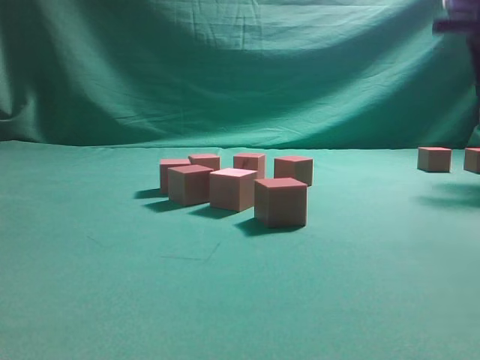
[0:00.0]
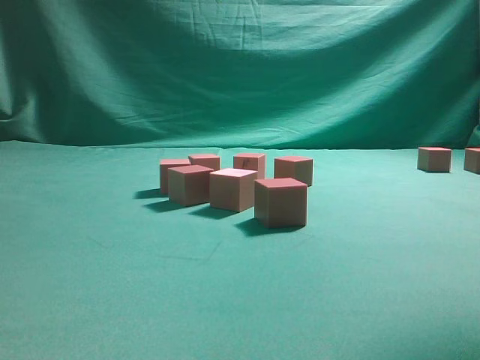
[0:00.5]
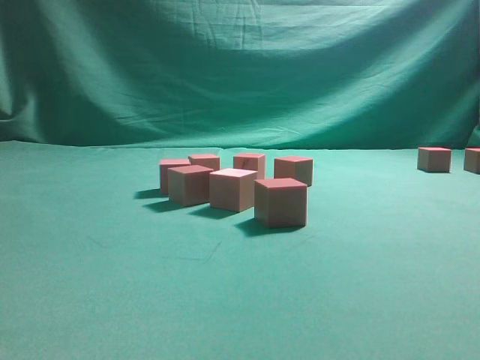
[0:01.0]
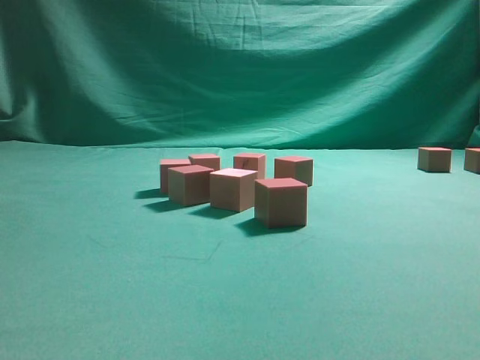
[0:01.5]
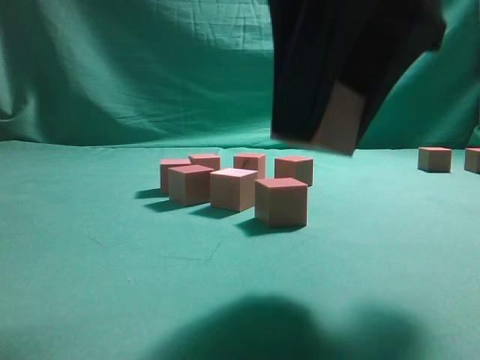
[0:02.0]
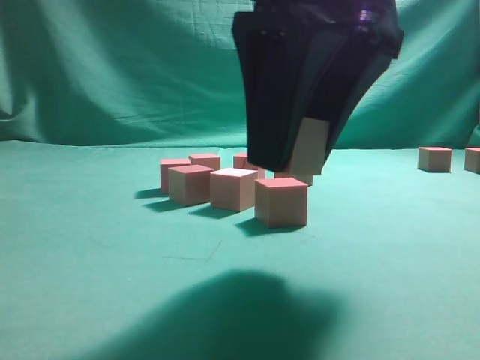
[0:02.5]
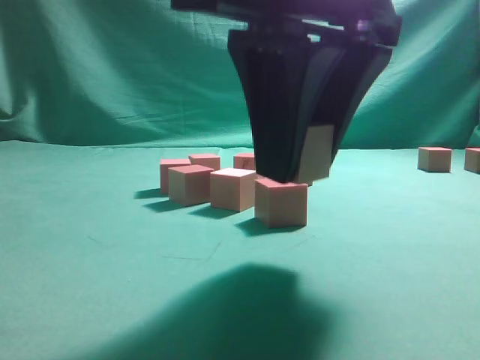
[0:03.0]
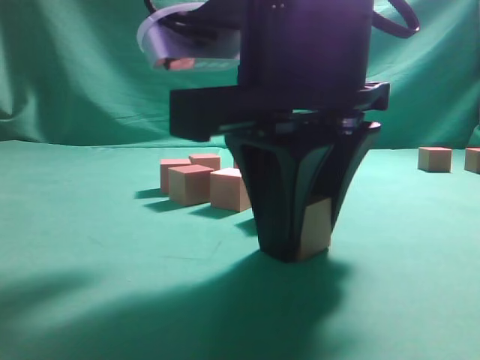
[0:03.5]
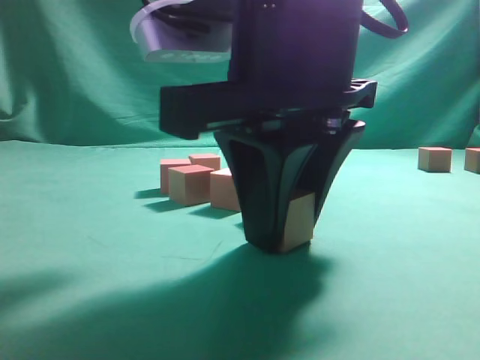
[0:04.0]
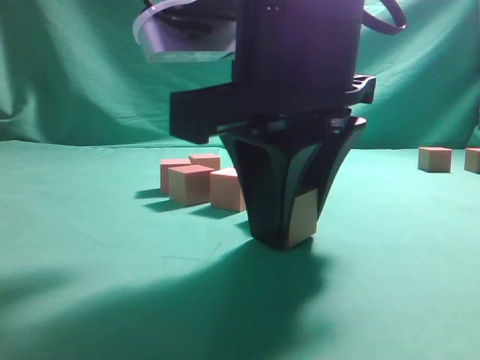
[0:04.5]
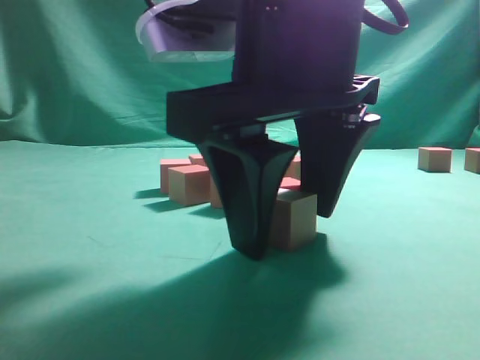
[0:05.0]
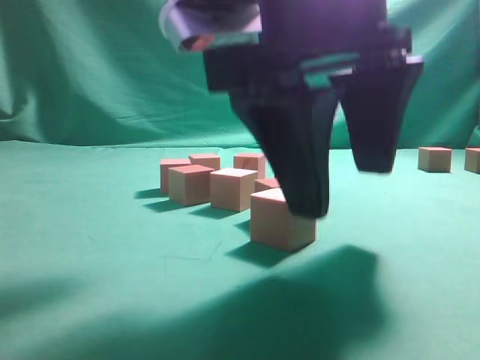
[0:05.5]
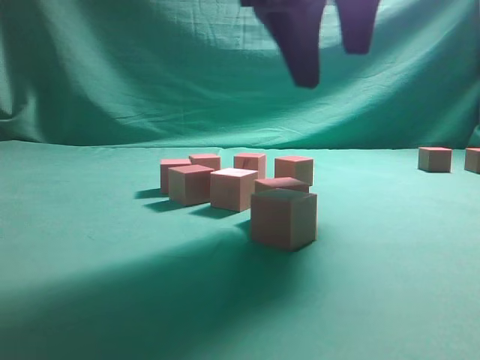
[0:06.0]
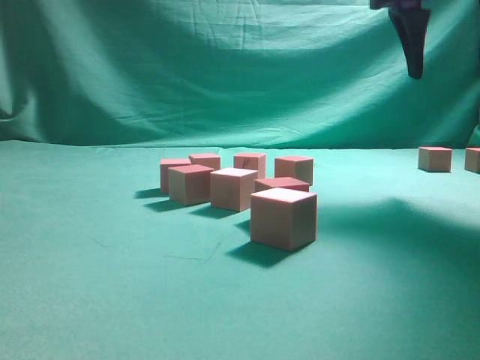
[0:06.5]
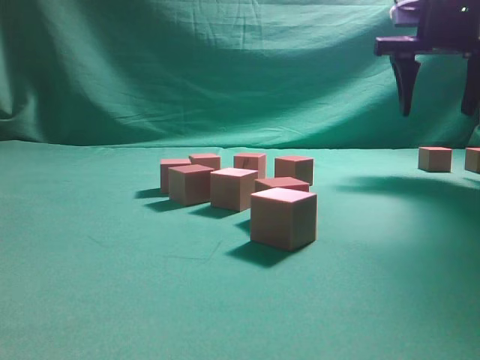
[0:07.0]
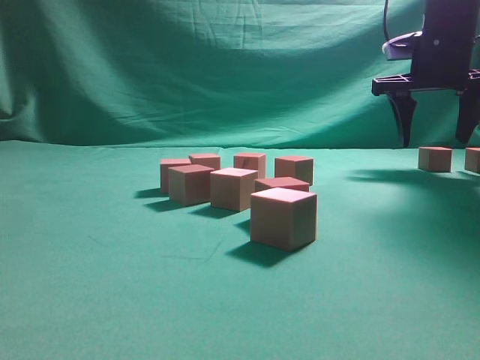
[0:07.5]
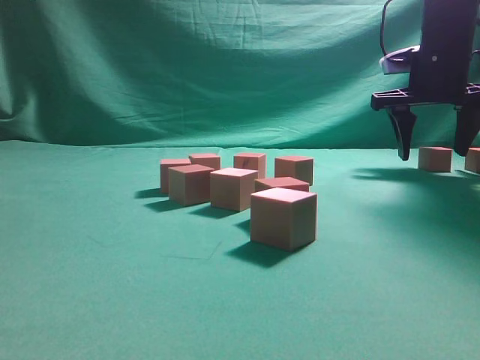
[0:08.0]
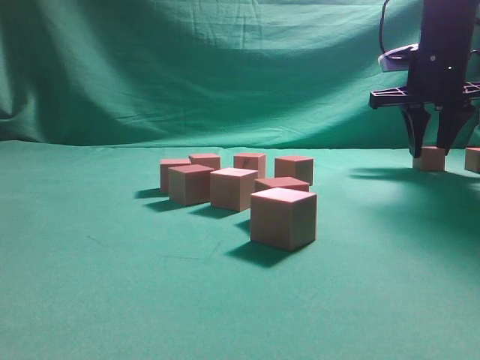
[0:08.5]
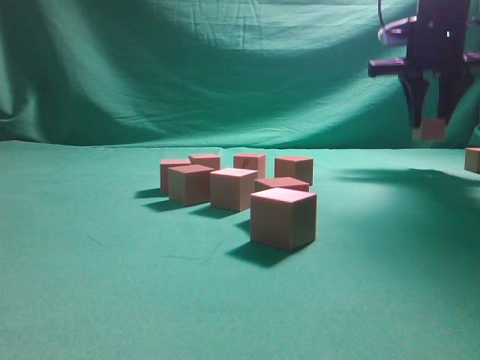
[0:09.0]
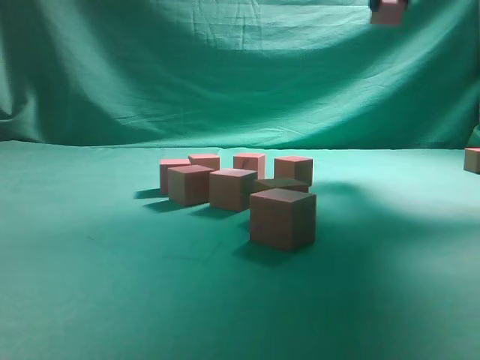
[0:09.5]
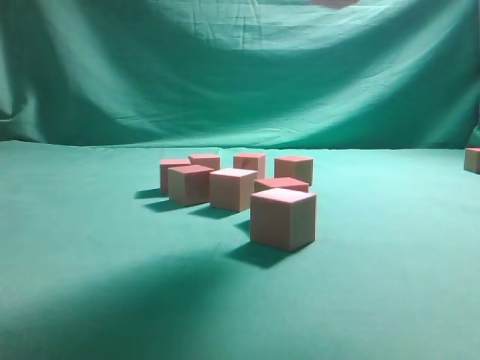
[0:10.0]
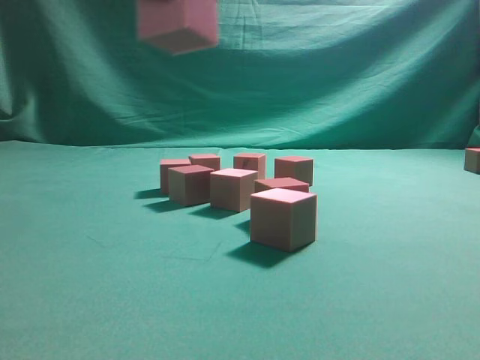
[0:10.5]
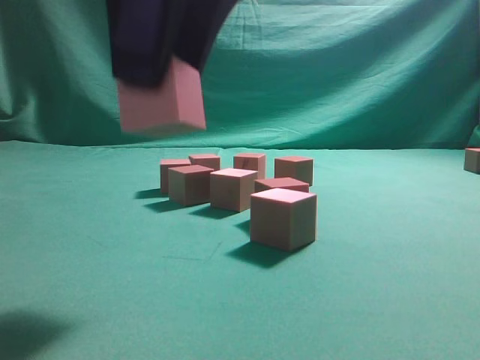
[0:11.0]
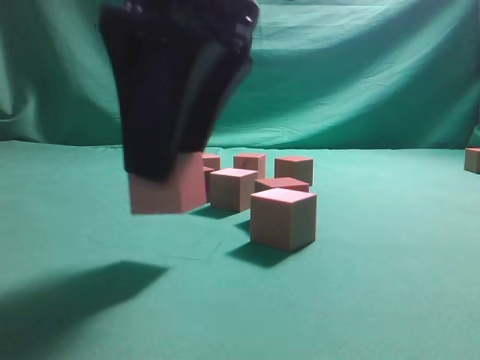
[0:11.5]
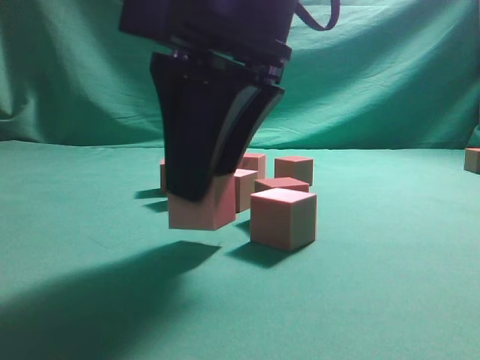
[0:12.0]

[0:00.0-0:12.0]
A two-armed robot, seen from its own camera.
Task of the whole recording: pick up the multiple cubes in two columns one by one and place them in another position on the table.
Step, 0:01.0 to 0:06.0: Place the block at the correct position to assemble the letter S.
Step, 0:06.5 to 0:09.5: Pick up the block on the table.
0:00.0 to 0:02.0: The right gripper heads backward and to the left, covering approximately 30 cm.
0:02.0 to 0:04.0: The right gripper goes about 5 cm downward.
0:04.0 to 0:06.0: The right gripper is displaced upward and forward by some 10 cm, and opens its fingers.
0:06.0 to 0:08.0: The right gripper goes about 30 cm forward, to the right and downward.
0:08.0 to 0:10.0: The right gripper shifts about 30 cm backward, upward and to the left, and closes up.
0:10.0 to 0:12.0: The right gripper travels downward, to the left and backward by some 20 cm.

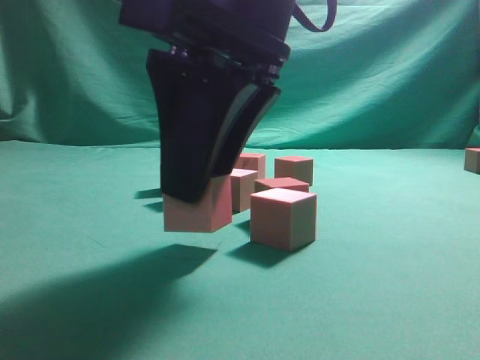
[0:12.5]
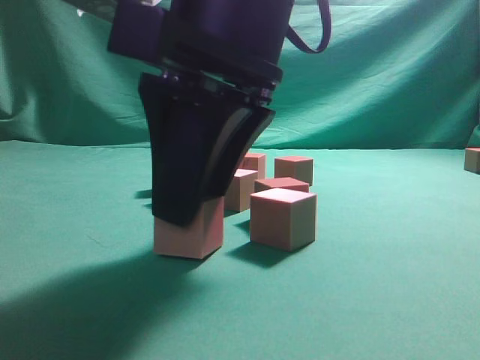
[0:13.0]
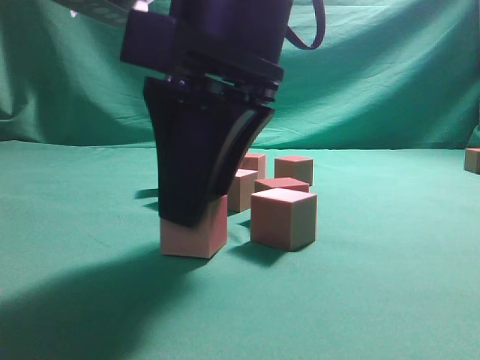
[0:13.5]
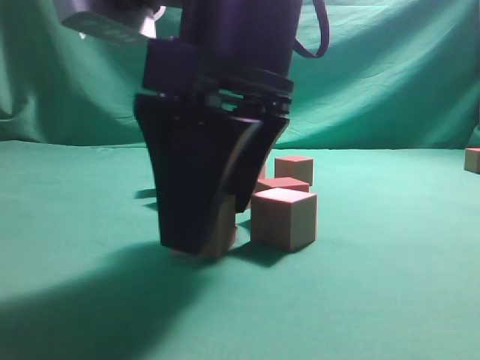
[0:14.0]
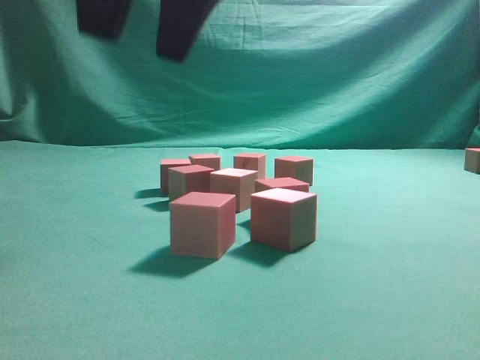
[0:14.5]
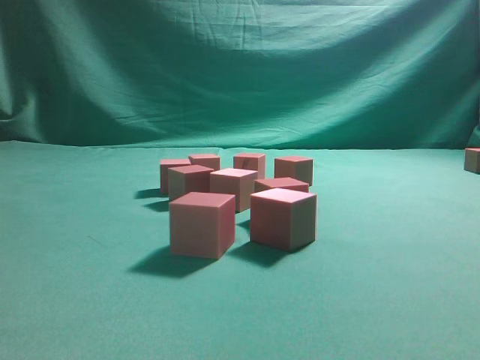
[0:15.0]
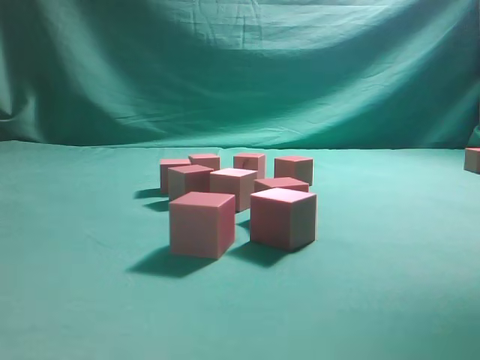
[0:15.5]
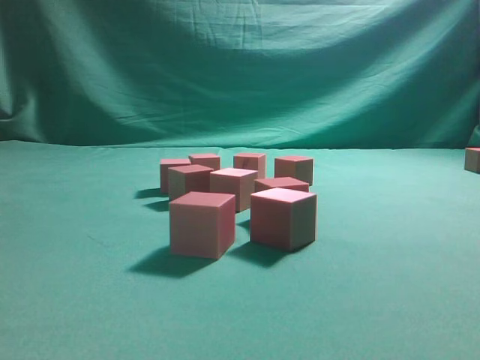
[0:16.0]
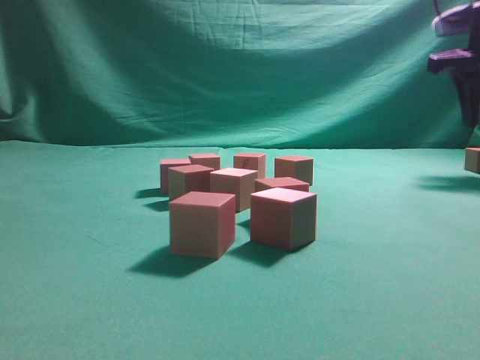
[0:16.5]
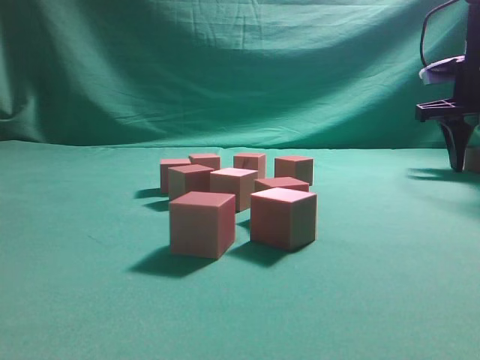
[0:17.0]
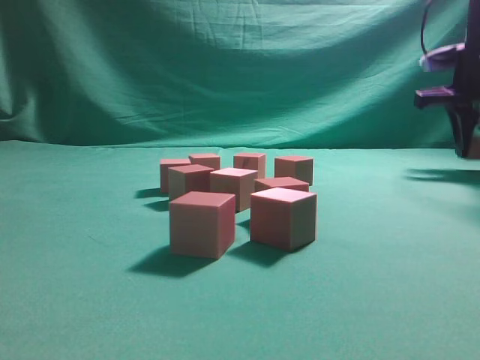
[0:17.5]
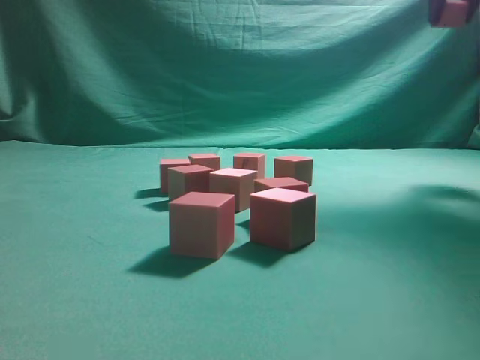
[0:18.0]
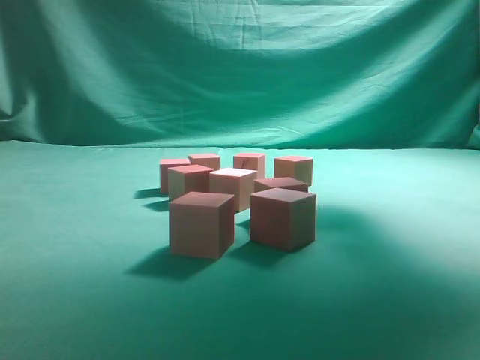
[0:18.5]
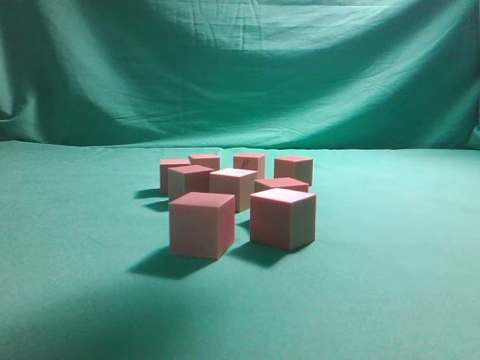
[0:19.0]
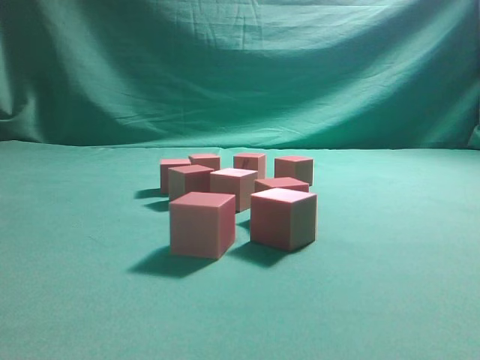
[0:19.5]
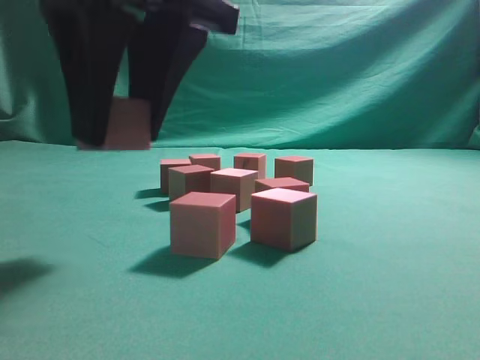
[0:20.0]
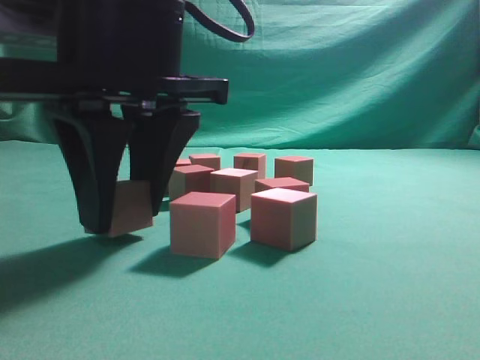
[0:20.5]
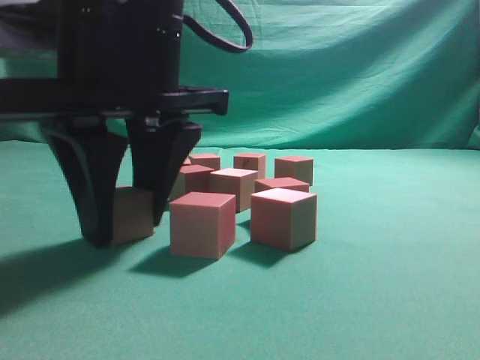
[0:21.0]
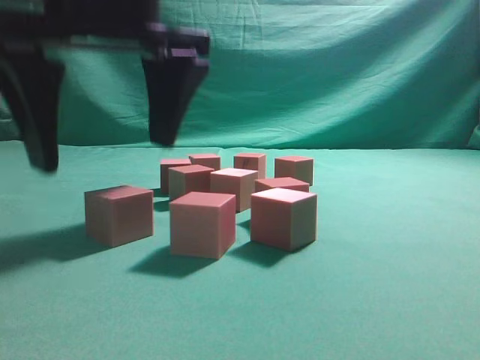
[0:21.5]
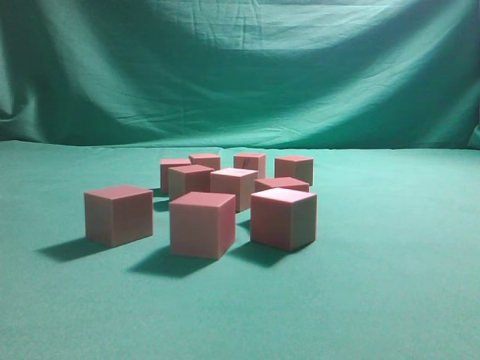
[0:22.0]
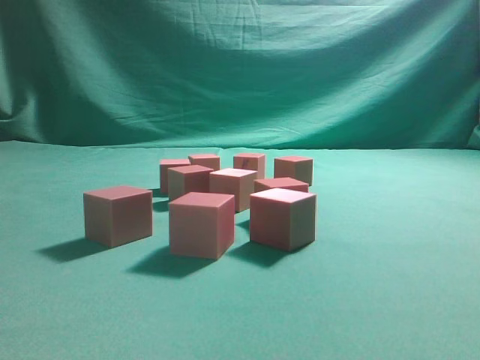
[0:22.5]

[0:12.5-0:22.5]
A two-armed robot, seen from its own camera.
Task of the whole recording: pick up the multiple cubes in two columns one by one and place them in another position on the table.
Step, 0:14.5 to 0:18.5: Pick up the block on the table.
Step, 0:19.5 to 0:21.5: Place the block at the correct position to assemble the letter S.
0:12.5 to 0:14.5: The right gripper shifts about 10 cm upward, and opens its fingers.
0:14.5 to 0:16.5: The right gripper goes approximately 40 cm to the right and forward.
0:16.5 to 0:18.5: The right gripper moves upward, to the left and backward, approximately 20 cm.
0:18.5 to 0:20.5: The right gripper heads to the left, downward and backward, covering approximately 35 cm.
0:20.5 to 0:22.5: The right gripper shifts approximately 30 cm upward, and closes its fingers.
